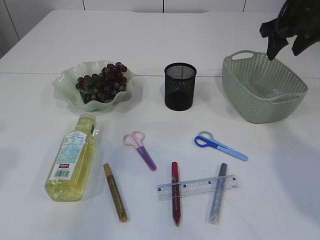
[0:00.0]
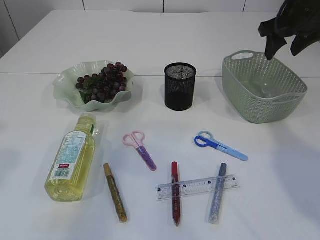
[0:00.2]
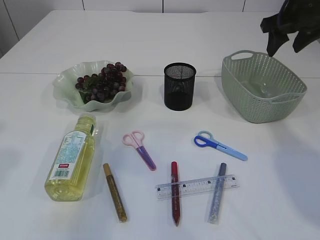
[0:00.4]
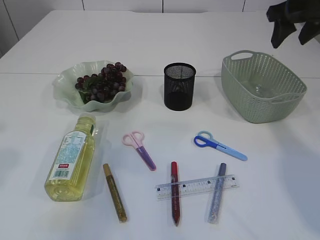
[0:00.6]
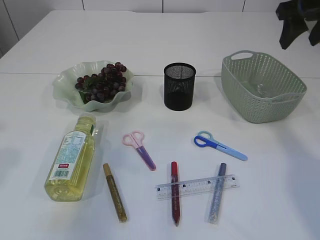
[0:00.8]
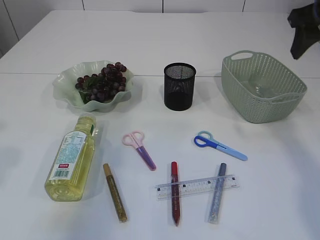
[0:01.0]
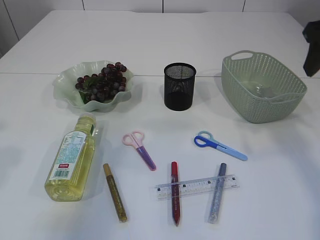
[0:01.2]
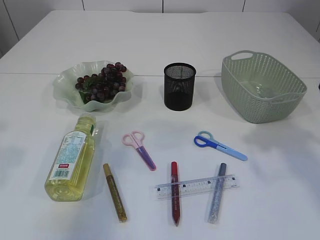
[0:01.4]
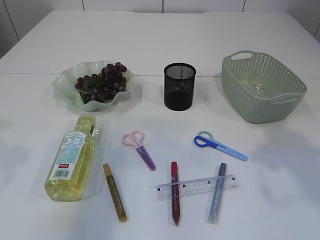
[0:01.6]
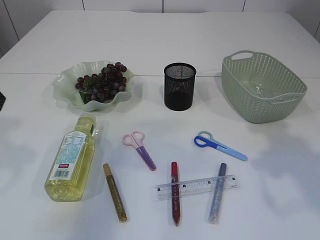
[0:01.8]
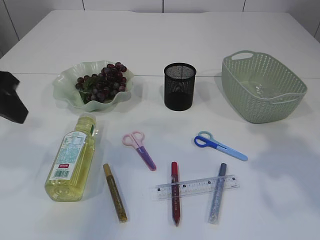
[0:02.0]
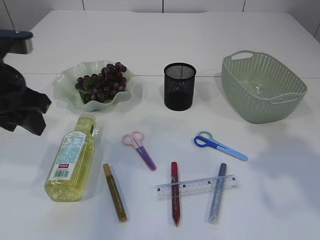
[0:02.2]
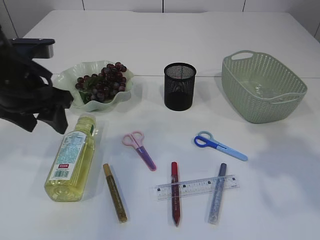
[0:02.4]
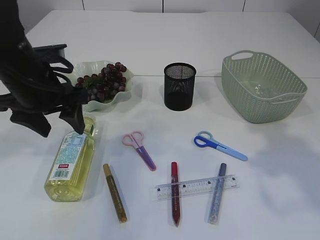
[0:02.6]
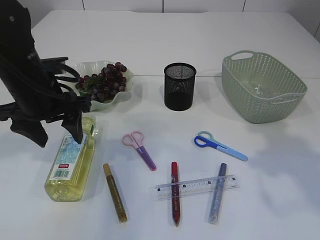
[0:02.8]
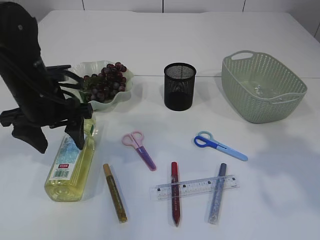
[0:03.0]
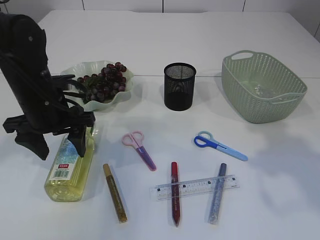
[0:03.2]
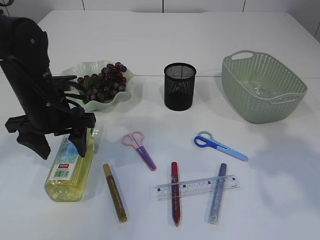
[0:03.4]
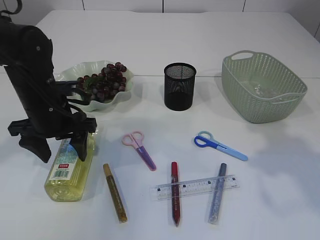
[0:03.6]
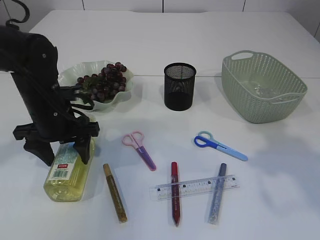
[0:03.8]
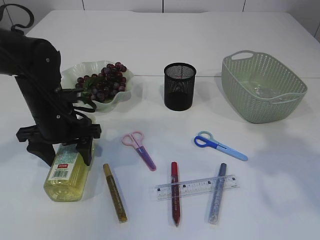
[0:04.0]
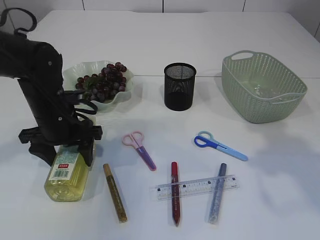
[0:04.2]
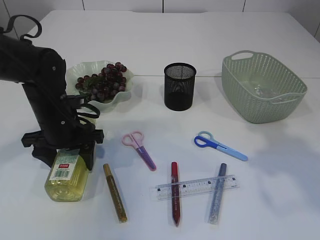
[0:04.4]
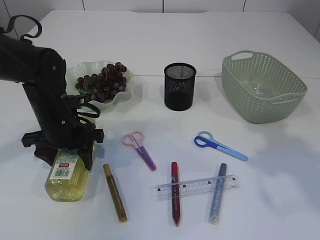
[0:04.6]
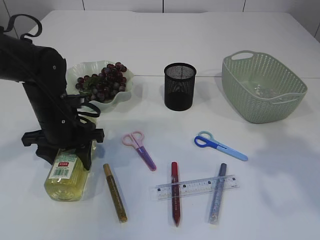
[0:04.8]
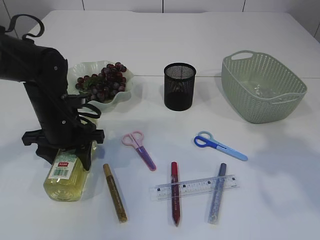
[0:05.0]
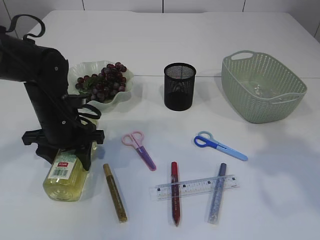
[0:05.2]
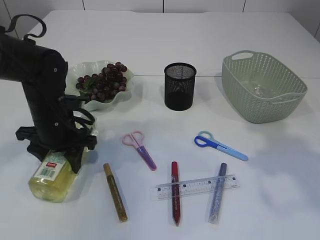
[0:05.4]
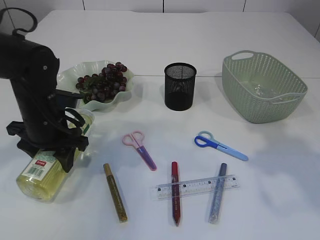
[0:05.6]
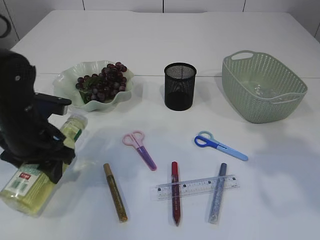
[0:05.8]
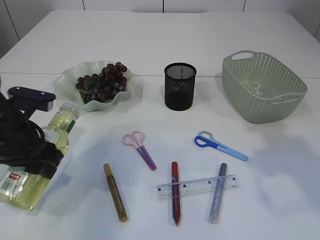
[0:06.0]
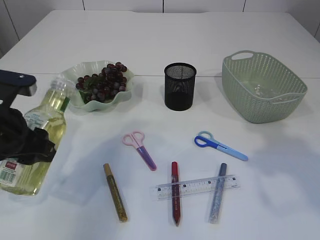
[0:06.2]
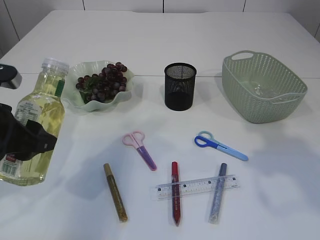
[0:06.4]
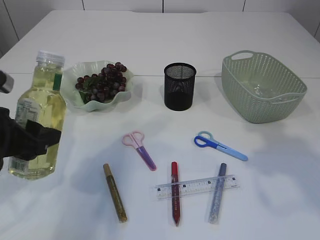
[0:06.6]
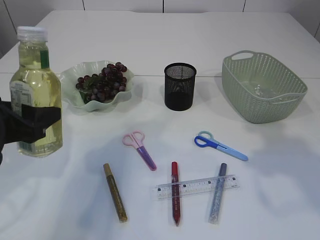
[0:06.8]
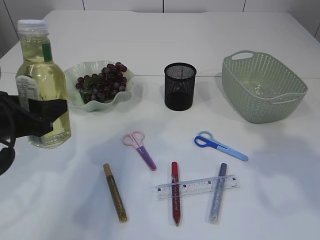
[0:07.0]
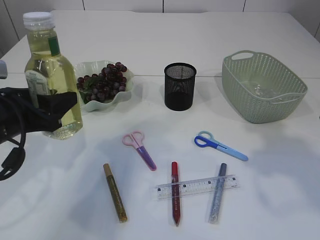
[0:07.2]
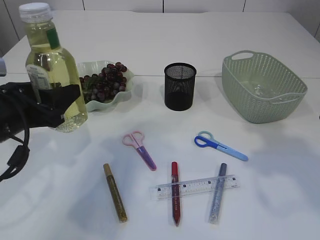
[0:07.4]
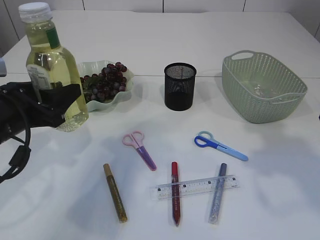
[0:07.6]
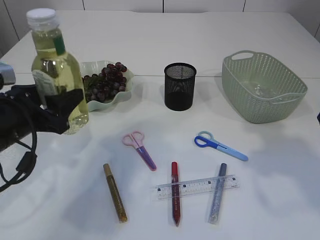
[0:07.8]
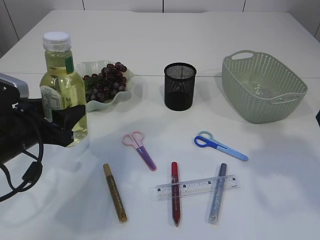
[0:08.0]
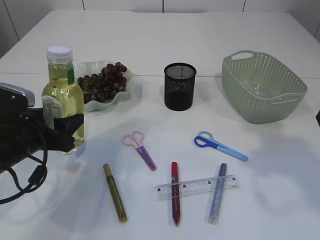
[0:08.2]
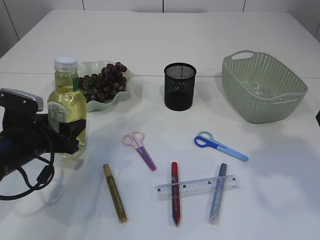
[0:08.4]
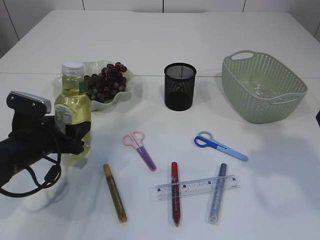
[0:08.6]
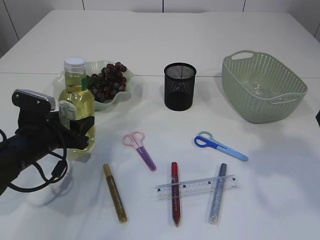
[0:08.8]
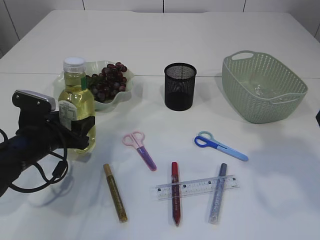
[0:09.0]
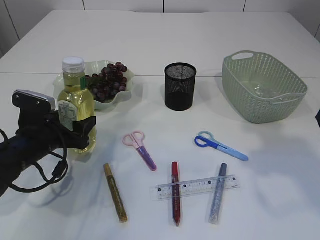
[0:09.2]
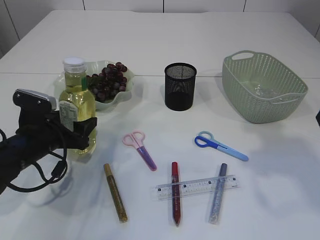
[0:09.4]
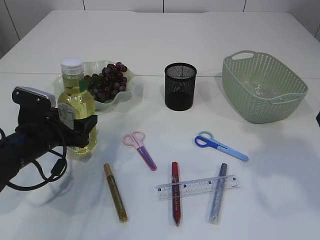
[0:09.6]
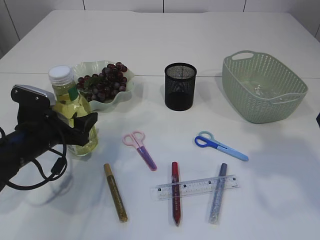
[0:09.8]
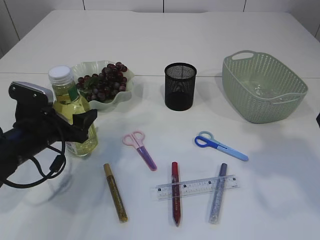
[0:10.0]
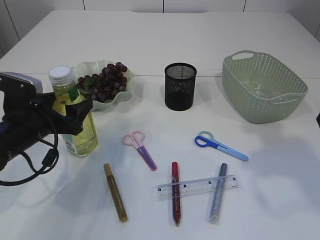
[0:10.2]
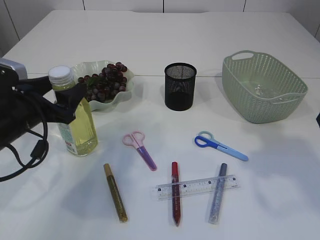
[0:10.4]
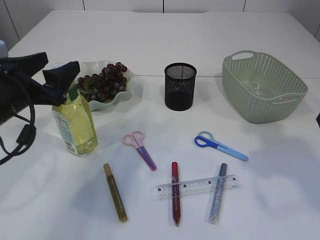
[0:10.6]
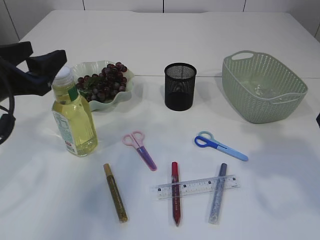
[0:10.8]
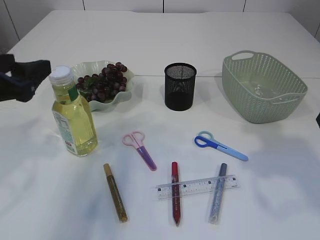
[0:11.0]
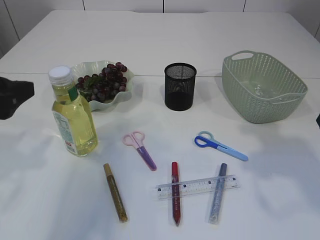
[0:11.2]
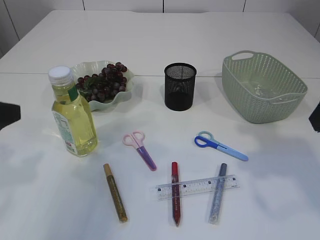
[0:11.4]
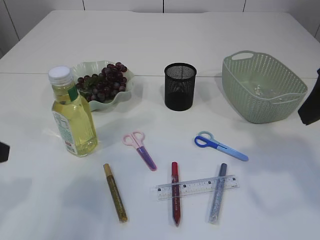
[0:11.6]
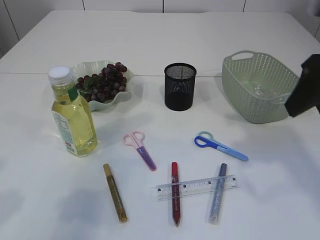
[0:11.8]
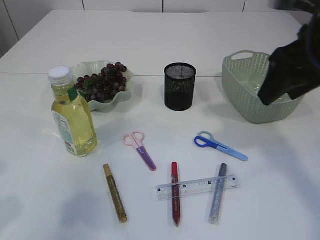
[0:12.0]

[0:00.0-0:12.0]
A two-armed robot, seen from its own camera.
Step, 0:00.0 to 0:01.0: Place the plastic in the basket.
Step, 0:01.2 to 0:06.2: Pick up the bottle with the left arm.
Step, 0:06.4 to 0:10.6: Place the bottle.
0:00.0 to 0:01.6: The right gripper shifts about 20 cm backward.
0:01.6 to 0:03.0: The left gripper goes about 20 cm downward, forward and to the right.
0:03.0 to 0:04.4: The left gripper moves downward, some 5 cm.
0:04.4 to 0:06.0: The left gripper is displaced backward by some 5 cm.
0:07.6 to 0:09.0: The left gripper travels downward and forward by about 10 cm.
0:09.0 to 0:10.4: The left gripper goes about 10 cm upward.
0:10.4 to 0:12.0: The right gripper travels forward by about 5 cm; the left gripper heads backward and upward, covering some 15 cm.

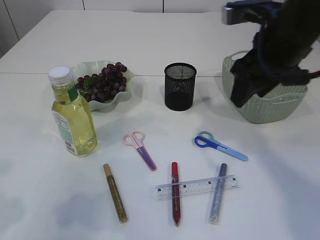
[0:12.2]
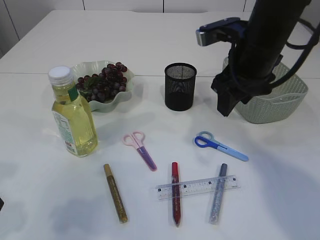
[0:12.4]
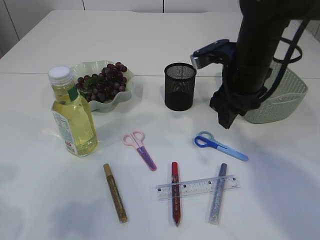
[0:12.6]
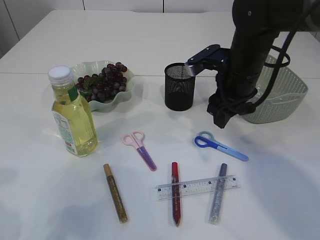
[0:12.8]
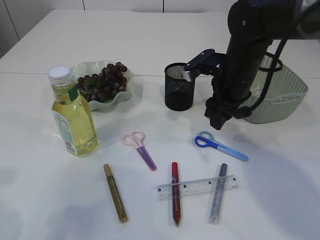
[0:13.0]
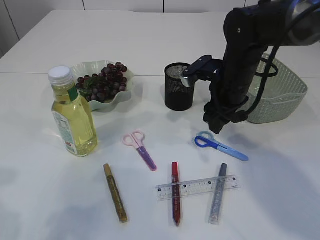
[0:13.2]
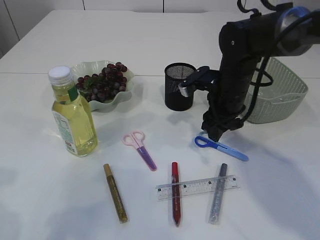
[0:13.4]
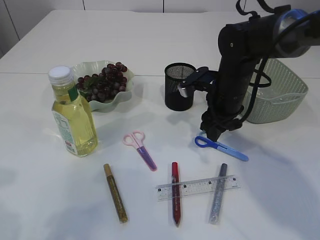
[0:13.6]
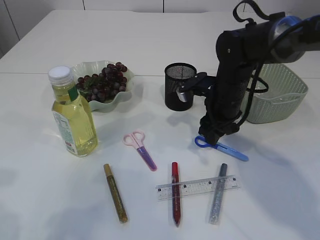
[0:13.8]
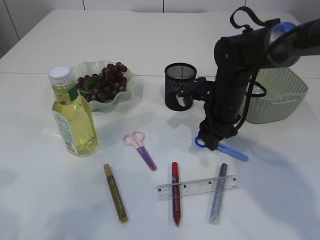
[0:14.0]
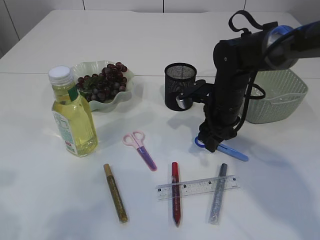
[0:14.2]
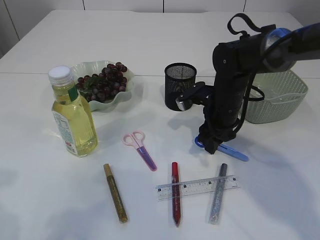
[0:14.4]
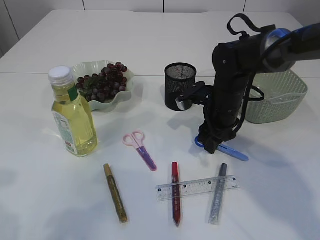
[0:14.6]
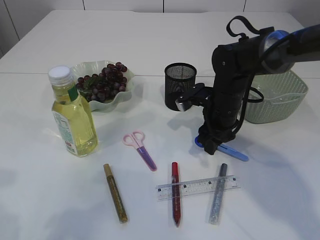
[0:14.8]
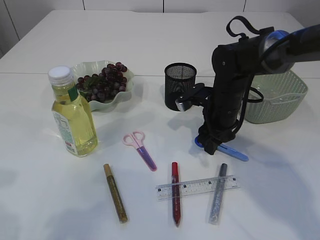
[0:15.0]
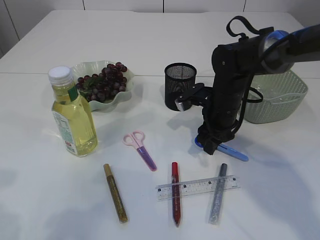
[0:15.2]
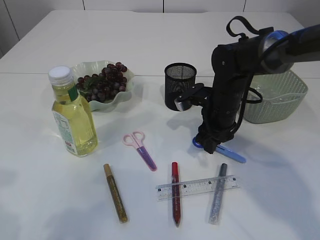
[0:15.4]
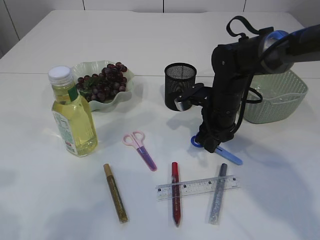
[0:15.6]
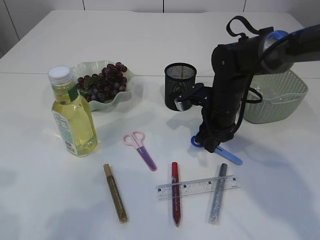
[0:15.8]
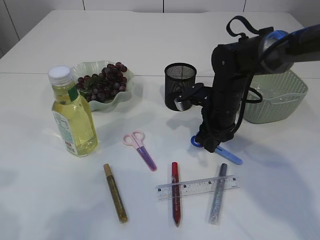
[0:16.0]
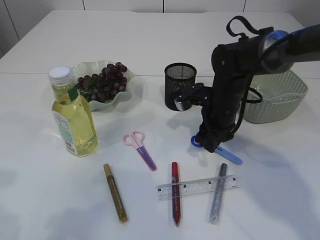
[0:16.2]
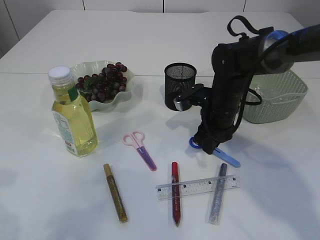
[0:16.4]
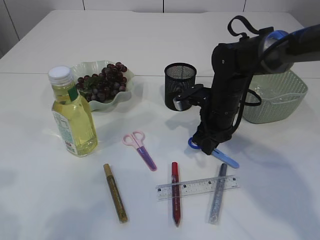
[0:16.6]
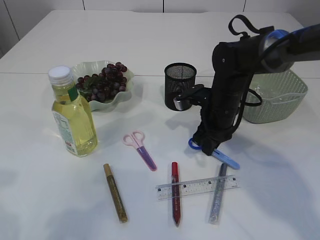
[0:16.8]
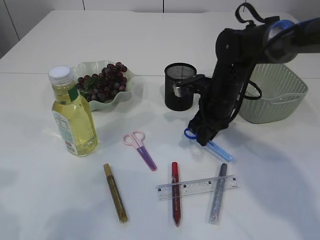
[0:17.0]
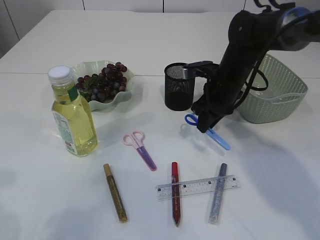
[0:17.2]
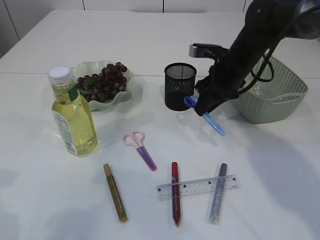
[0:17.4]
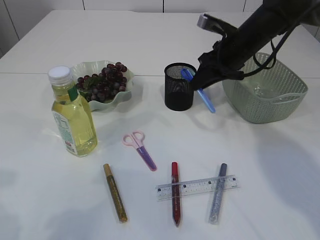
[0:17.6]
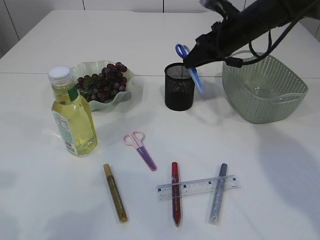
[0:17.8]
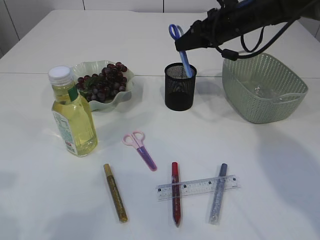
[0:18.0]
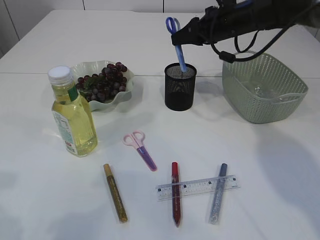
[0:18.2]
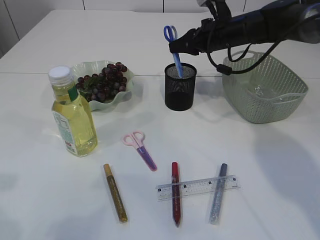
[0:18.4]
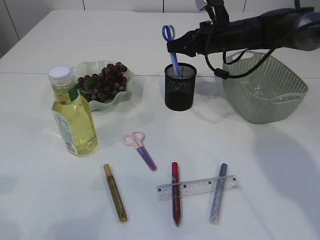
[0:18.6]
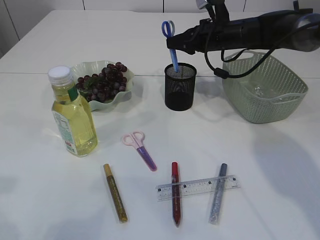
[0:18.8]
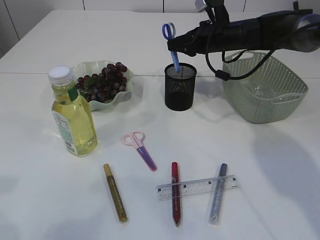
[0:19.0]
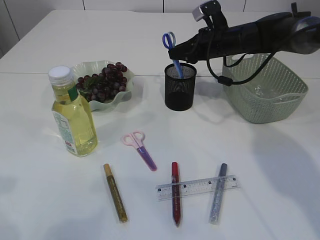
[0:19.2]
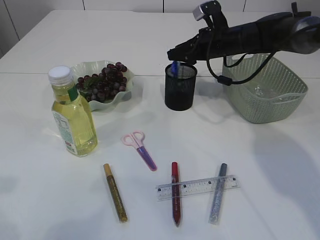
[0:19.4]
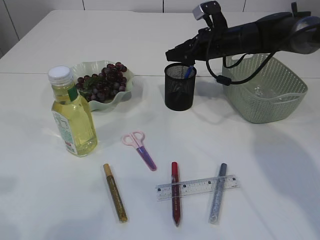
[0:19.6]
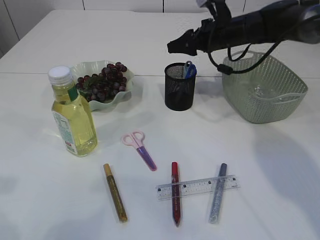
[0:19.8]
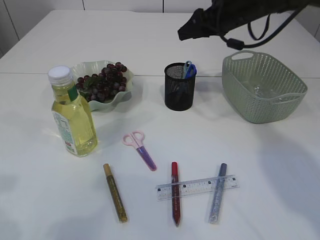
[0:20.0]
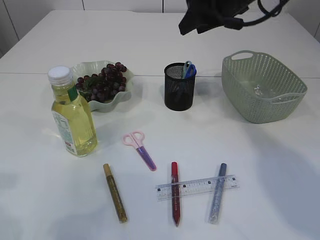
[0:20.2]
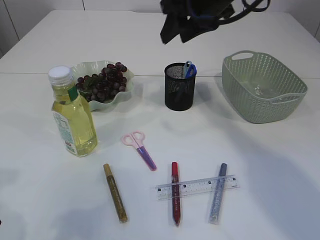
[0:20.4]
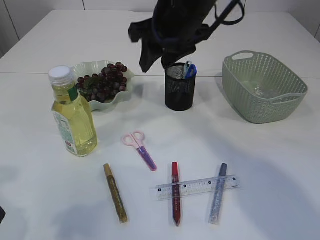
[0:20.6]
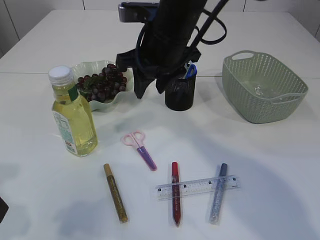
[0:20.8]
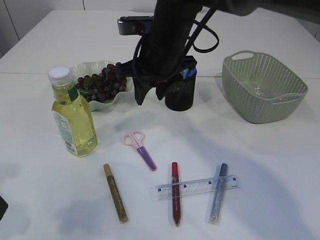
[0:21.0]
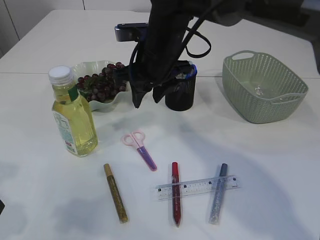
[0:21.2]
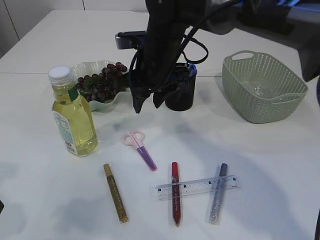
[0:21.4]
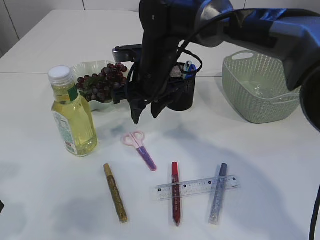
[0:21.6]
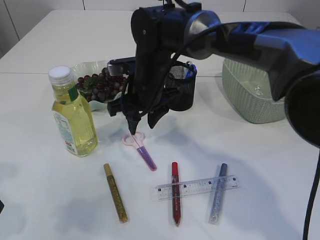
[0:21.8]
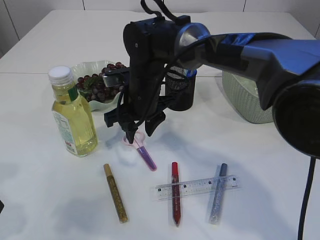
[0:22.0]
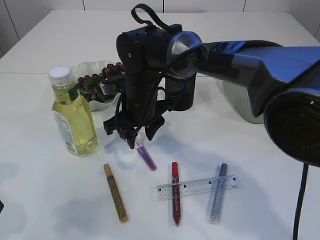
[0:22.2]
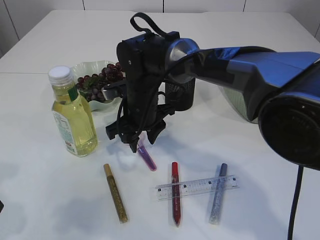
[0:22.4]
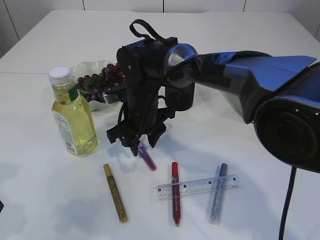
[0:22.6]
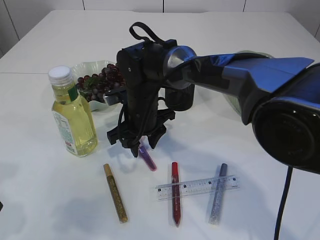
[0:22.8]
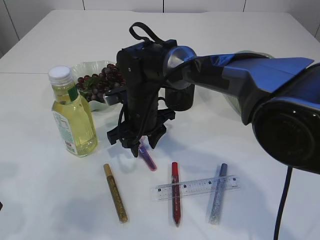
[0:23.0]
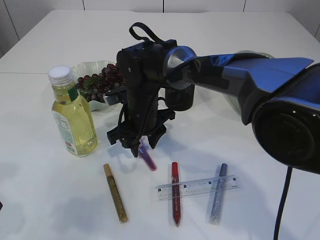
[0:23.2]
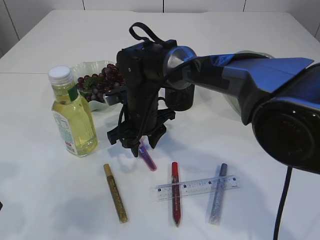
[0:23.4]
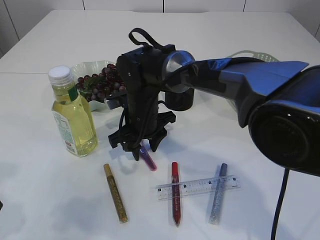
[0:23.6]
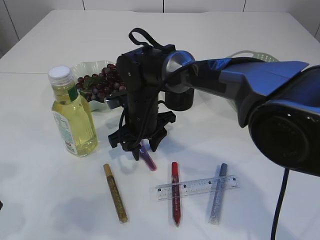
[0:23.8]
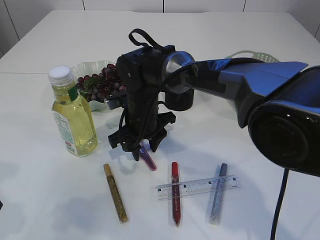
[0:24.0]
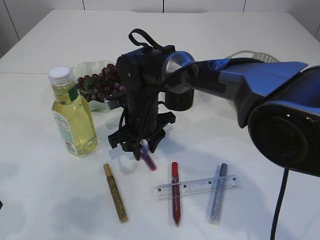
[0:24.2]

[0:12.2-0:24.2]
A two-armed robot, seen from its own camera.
Step, 0:12.2 to 0:17.2: pick up the blue scissors.
Step, 0:17.4 to 0:19.8: Place the blue scissors into the pen holder.
0:12.2 to 0:13.8: The right gripper heads downward and forward, covering approximately 15 cm.
0:13.8 to 0:15.2: The grippers stay close to where they were, moving slightly.
0:15.2 to 0:16.6: The right gripper closes its fingers.
0:16.6 to 0:18.2: The right gripper moves upward and forward, approximately 15 cm.
0:18.2 to 0:19.8: The right gripper opens its fingers.
0:19.8 to 0:21.2: The right gripper moves to the left and backward, roughly 20 cm.
0:21.2 to 0:22.6: The right gripper moves downward, roughly 10 cm.
0:22.6 to 0:24.2: There are only small adjustments of the grippers.
